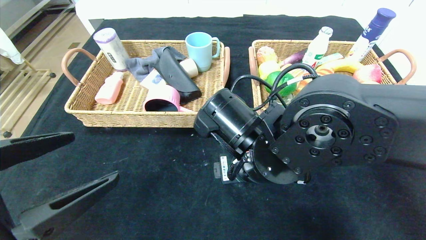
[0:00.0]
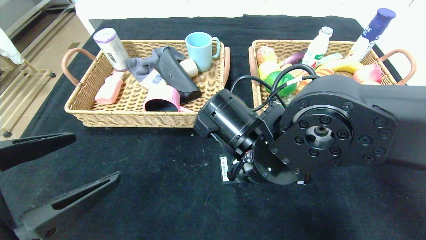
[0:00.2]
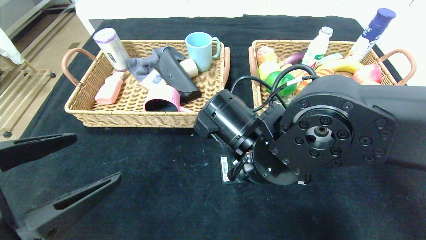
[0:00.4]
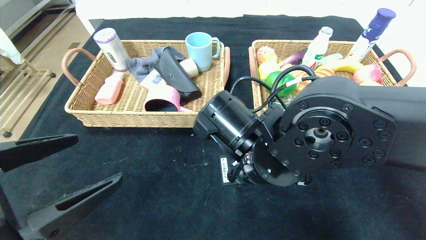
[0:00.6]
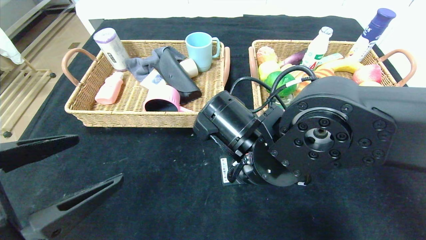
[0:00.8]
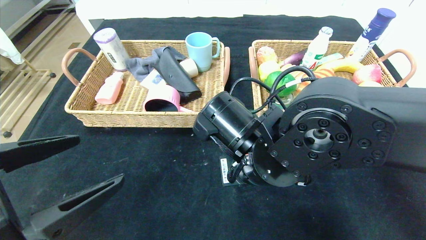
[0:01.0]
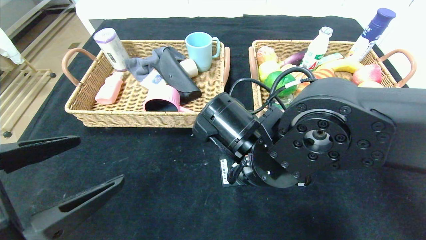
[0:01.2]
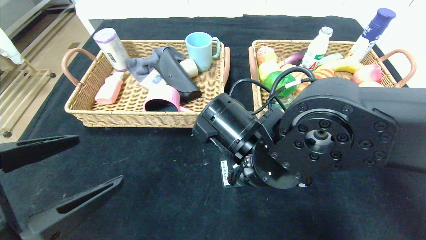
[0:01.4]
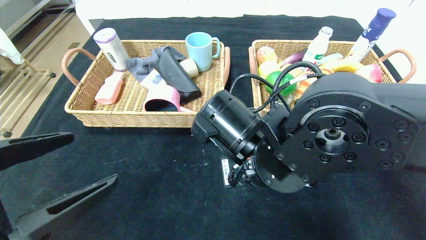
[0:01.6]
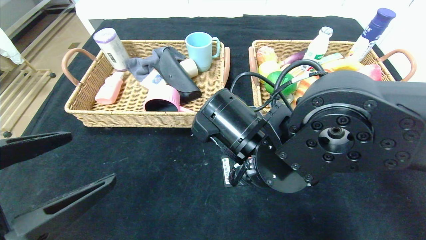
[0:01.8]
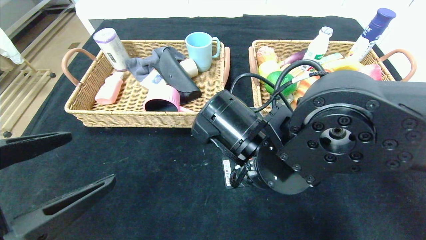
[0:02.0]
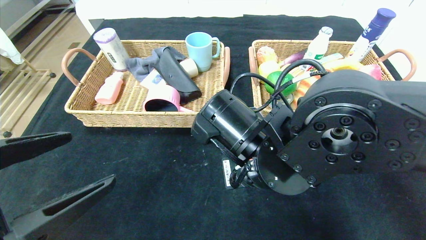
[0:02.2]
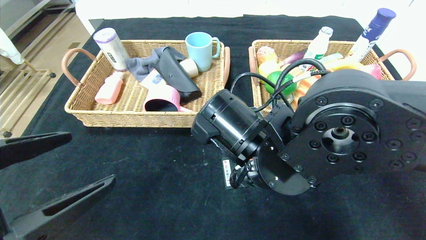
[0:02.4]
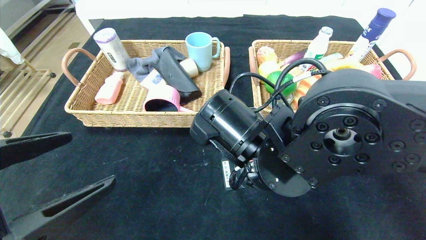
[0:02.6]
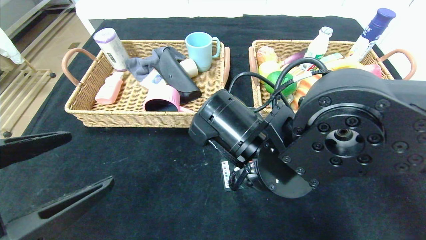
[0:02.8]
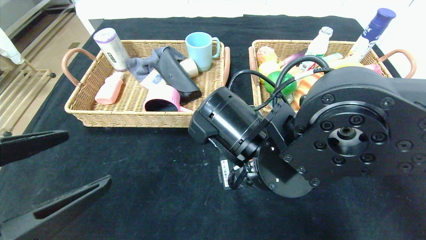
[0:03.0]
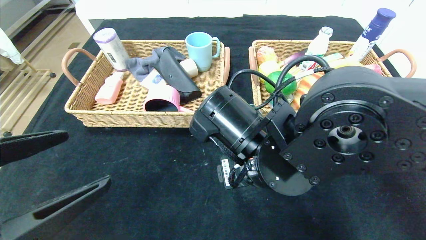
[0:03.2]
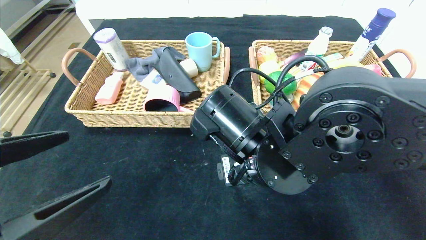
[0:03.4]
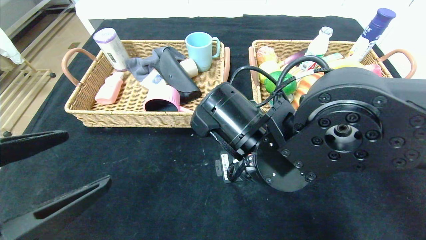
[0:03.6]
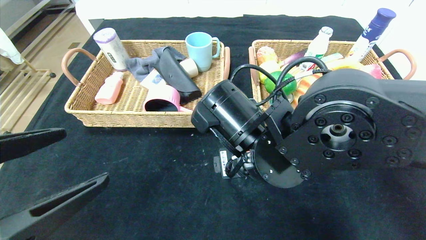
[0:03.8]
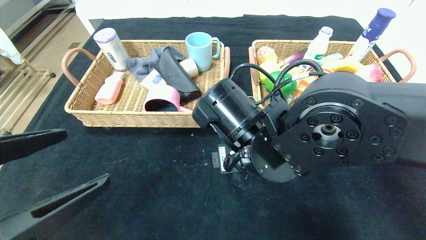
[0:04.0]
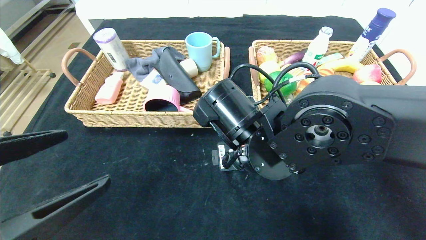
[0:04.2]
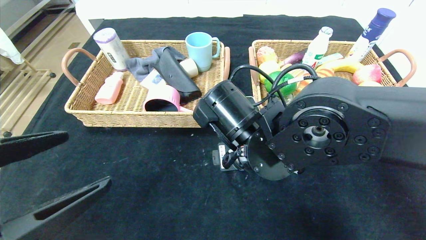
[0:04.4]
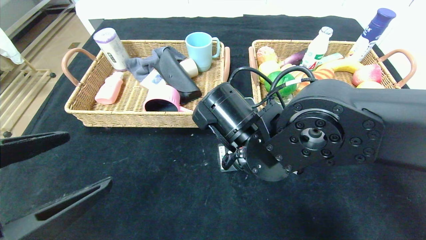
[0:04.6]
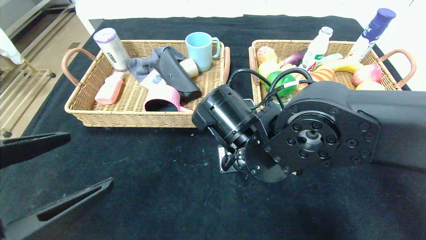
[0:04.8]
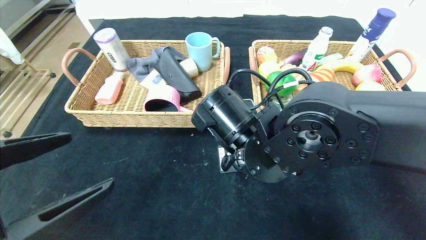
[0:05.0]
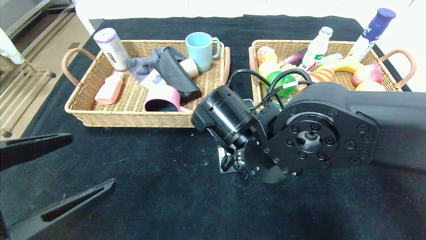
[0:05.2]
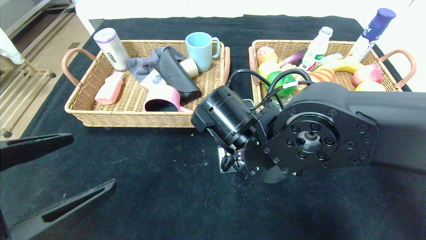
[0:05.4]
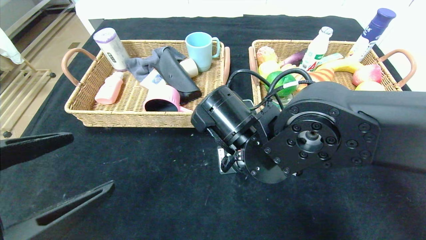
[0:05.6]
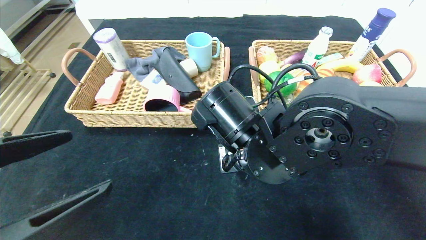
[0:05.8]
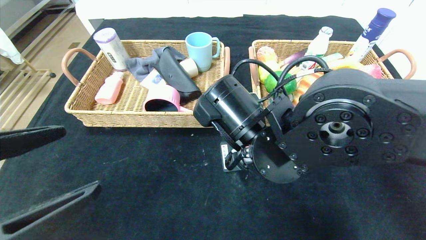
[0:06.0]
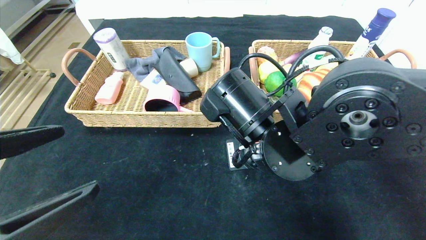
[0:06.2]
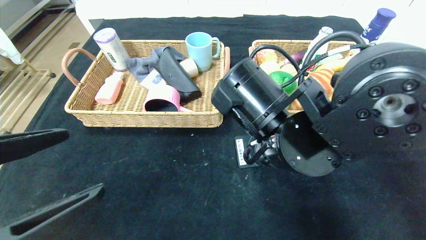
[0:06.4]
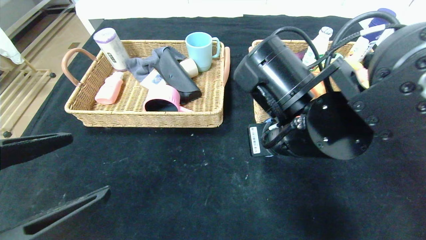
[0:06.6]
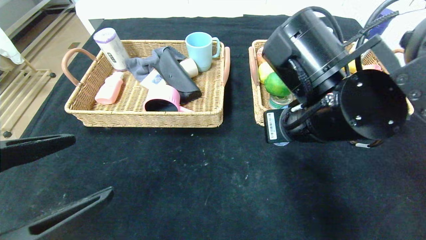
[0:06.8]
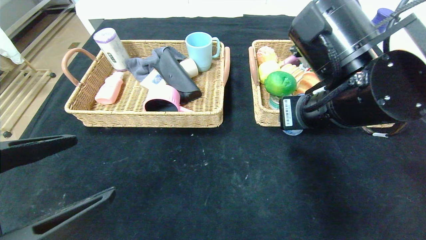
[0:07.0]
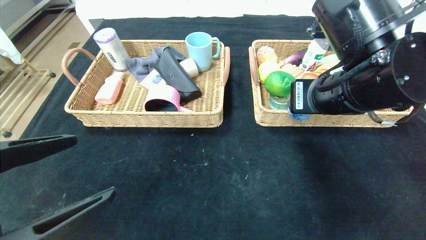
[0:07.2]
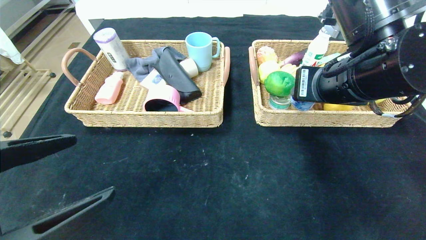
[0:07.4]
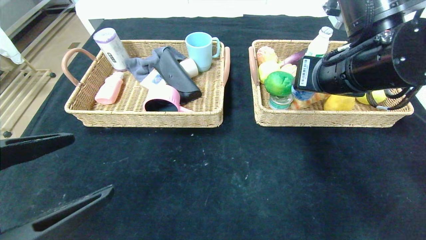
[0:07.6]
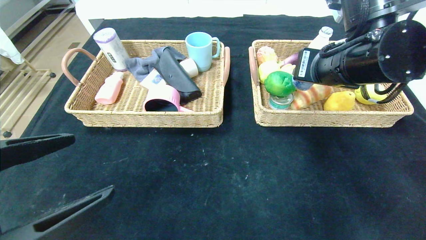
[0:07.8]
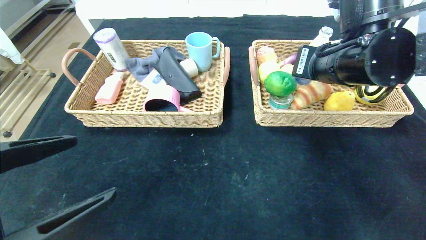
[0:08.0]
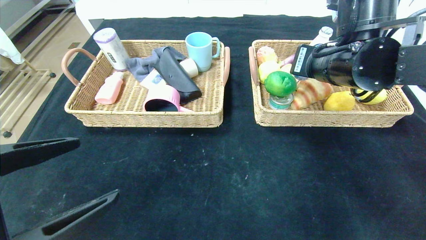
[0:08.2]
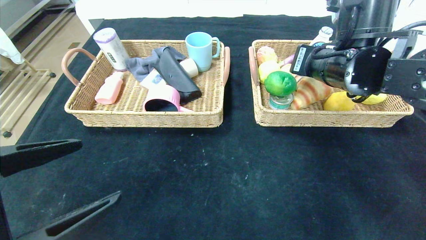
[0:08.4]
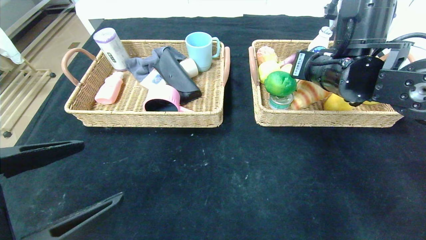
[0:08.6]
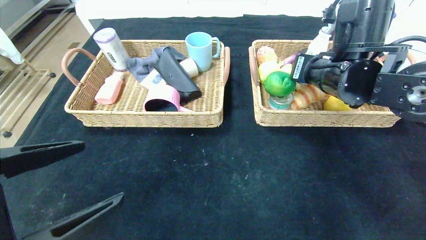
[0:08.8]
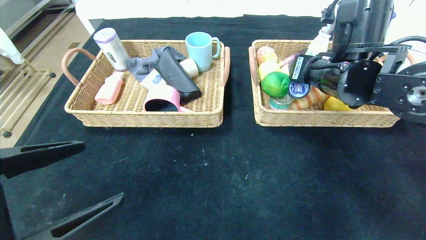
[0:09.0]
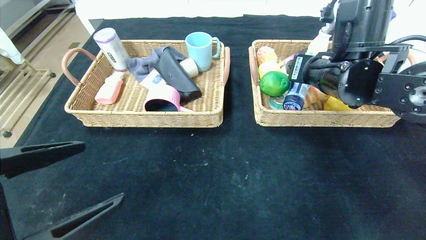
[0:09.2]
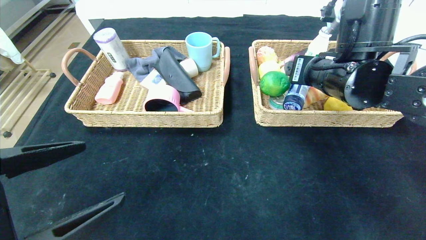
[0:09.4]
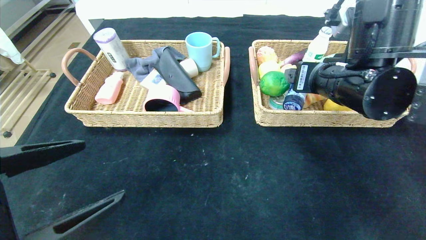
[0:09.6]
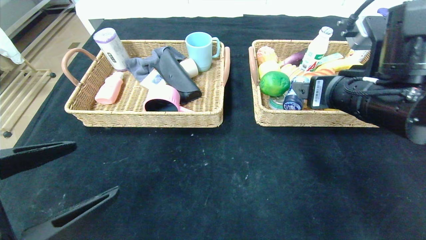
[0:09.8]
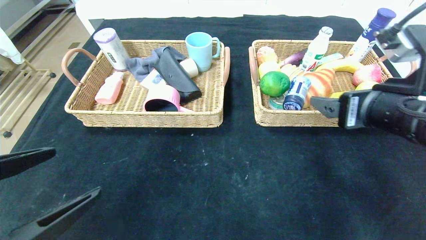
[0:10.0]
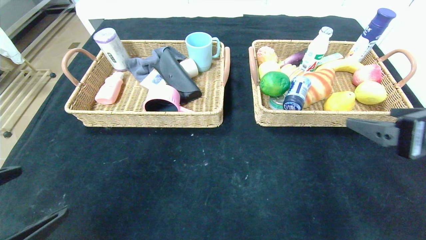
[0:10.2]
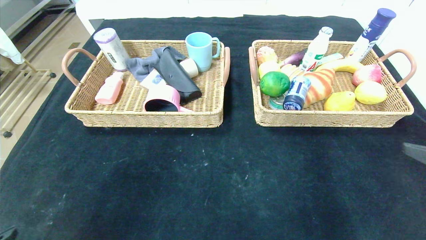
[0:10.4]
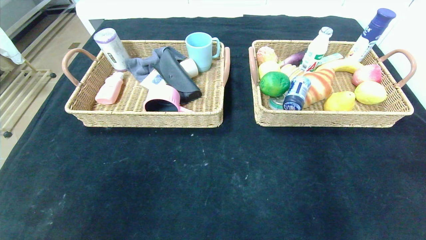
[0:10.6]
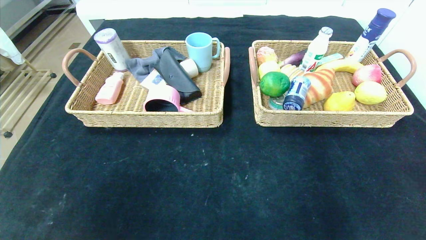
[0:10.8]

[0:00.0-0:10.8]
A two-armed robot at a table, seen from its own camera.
Step, 0:00.0 to 0:09.2: Grasp the round chewing gum and put it in the right basket.
0:00.0 to 0:01.6: The right gripper closes its fingers.
0:01.6 to 0:03.0: The right gripper opens up.
0:03.0 to 0:04.6: The grippers make only small movements.
0:04.6 to 0:06.2: The right gripper closes.
0:06.2 to 0:07.8: The right gripper travels to the right, upward and forward by about 15 cm.
0:07.8 to 0:09.2: The right gripper opens up.
0:09.2 to 0:10.8: The right gripper goes about 40 cm backward and to the right. The left gripper moves backward and to the left, some 15 cm.

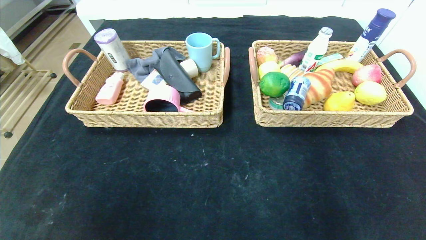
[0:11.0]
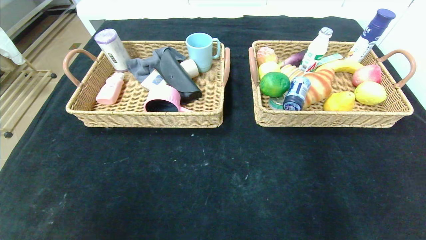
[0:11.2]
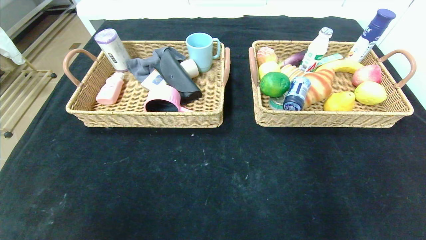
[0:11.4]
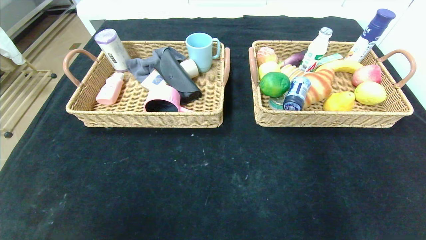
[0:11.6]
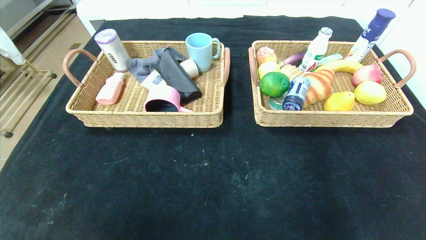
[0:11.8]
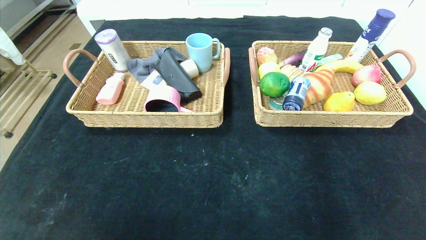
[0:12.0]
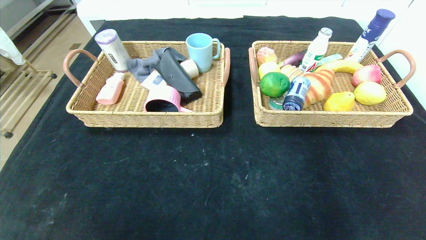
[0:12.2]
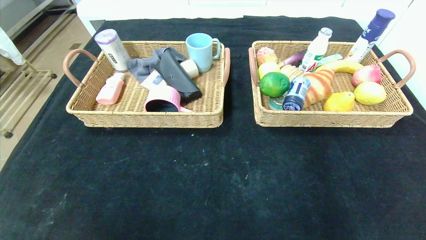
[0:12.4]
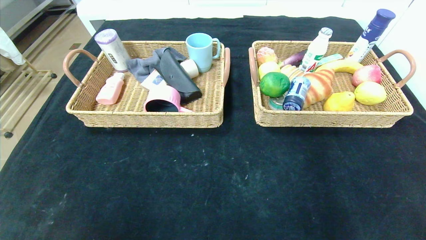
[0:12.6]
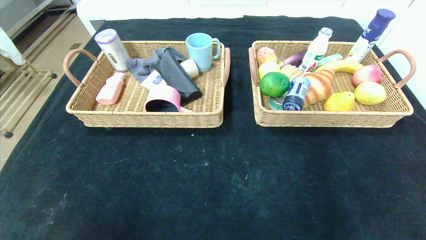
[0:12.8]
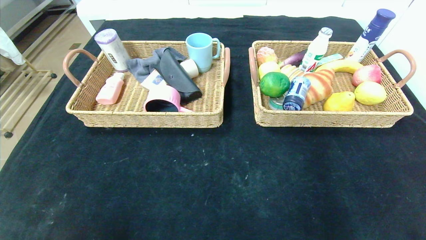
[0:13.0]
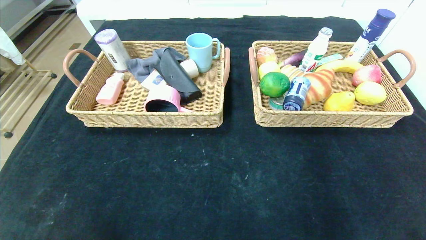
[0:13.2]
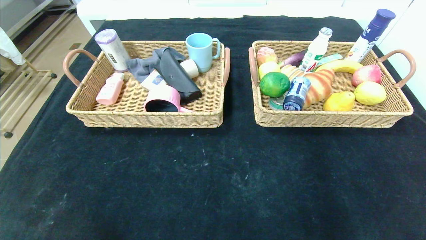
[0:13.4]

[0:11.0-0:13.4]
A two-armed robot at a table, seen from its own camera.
0:11.0 to 0:12.2: The right gripper goes approximately 10 cm downward. The left gripper changes place by some 5 cm.

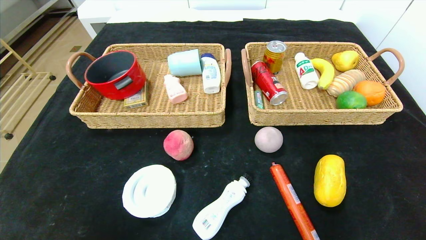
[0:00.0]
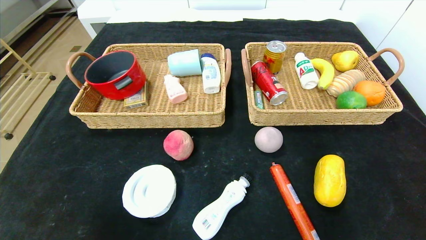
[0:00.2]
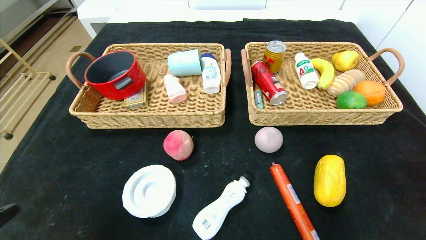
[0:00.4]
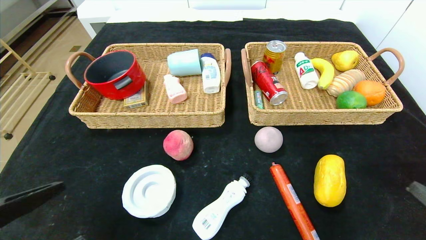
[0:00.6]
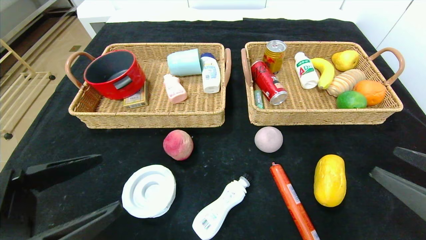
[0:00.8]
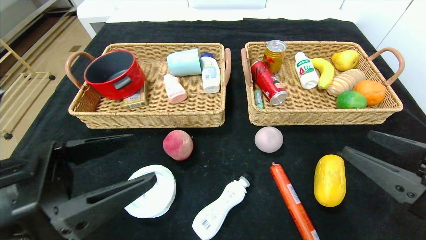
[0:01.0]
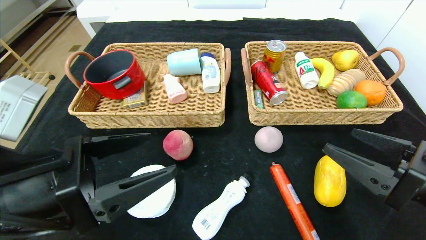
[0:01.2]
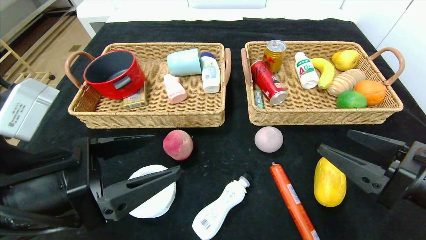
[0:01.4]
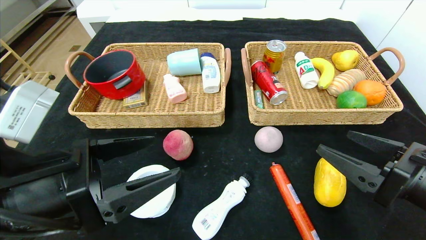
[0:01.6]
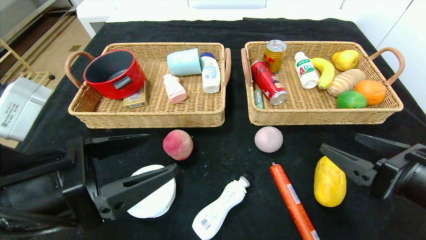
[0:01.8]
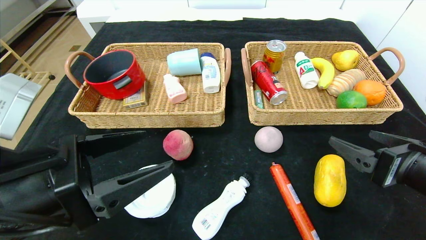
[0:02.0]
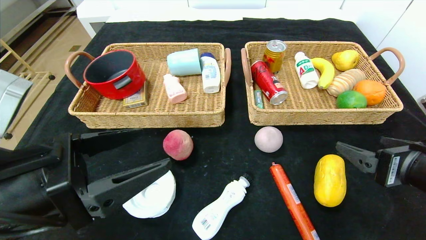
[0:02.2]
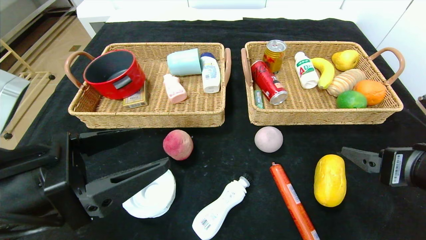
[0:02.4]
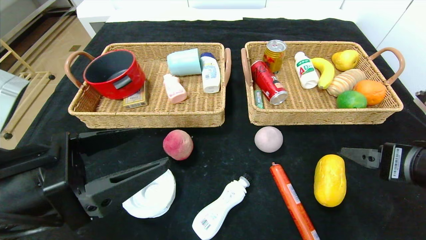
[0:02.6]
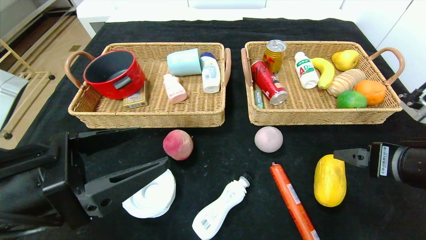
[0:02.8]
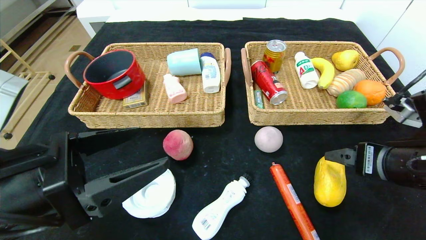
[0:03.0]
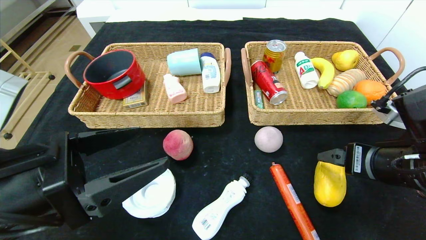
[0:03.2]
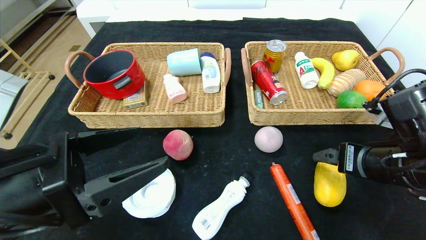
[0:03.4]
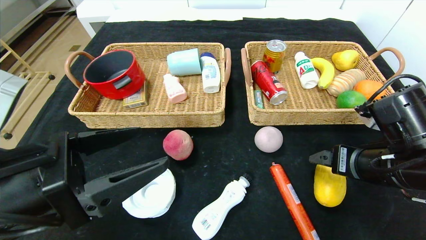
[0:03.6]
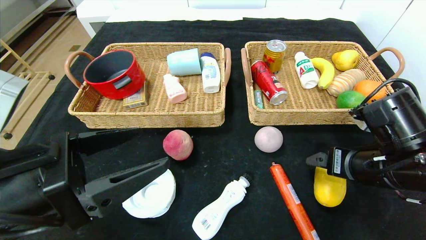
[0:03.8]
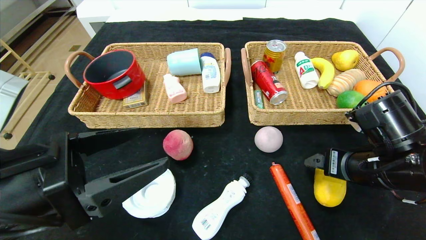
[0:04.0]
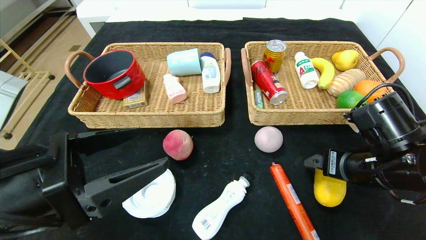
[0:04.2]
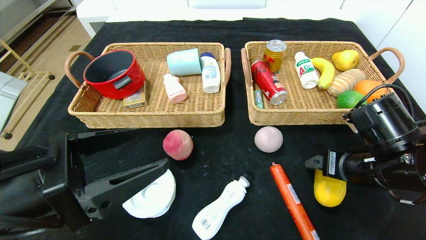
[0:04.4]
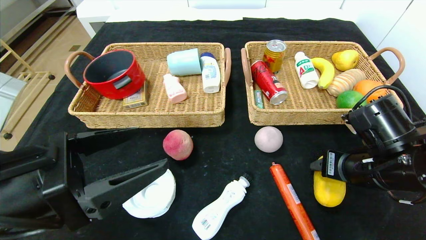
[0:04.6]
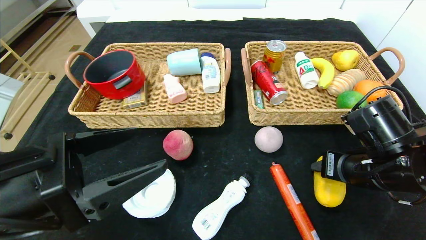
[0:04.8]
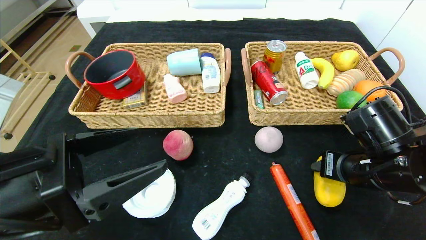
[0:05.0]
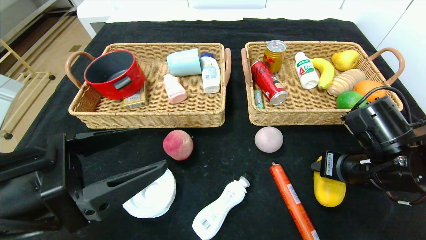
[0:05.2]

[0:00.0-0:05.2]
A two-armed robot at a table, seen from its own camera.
0:00.0 to 0:01.8: The left gripper is displaced forward, upward and to the right by about 20 cm, while the right gripper travels forward, to the left and upward by some 20 cm.
0:01.8 to 0:03.4: The right gripper goes roughly 5 cm forward.
0:03.4 to 0:05.2: The right gripper closes its fingers.
